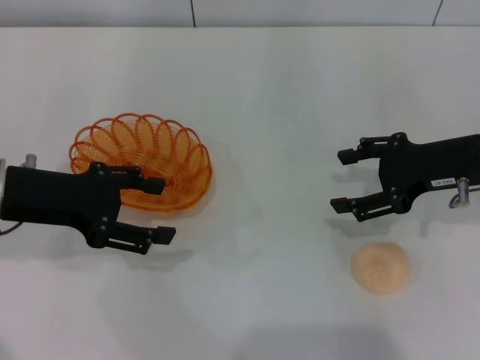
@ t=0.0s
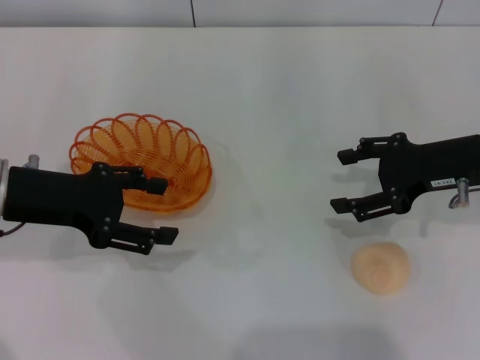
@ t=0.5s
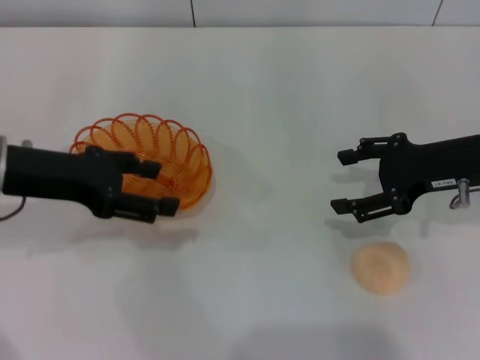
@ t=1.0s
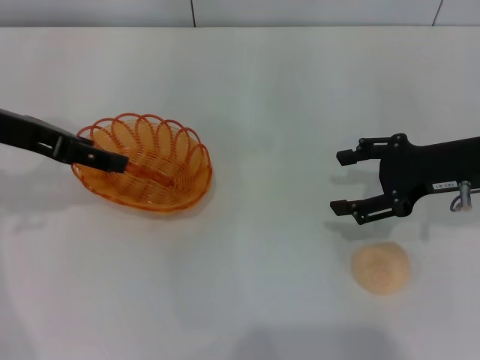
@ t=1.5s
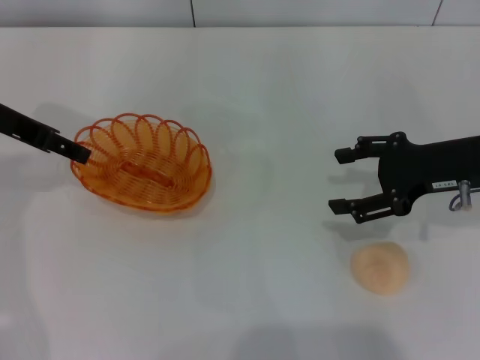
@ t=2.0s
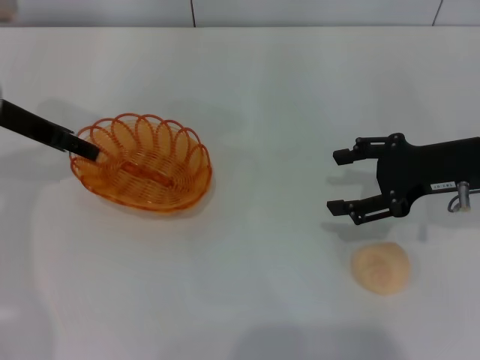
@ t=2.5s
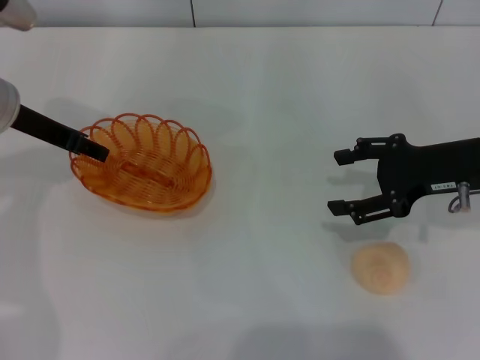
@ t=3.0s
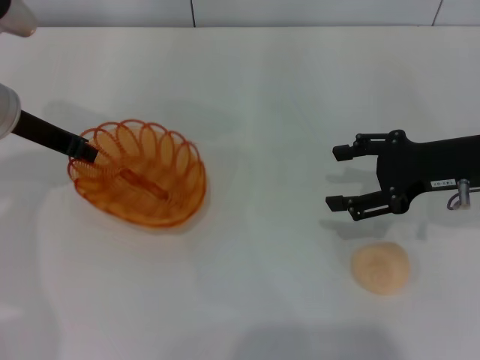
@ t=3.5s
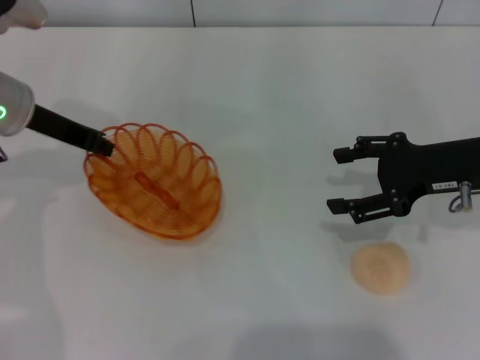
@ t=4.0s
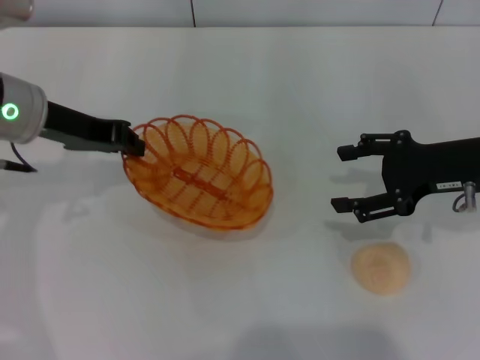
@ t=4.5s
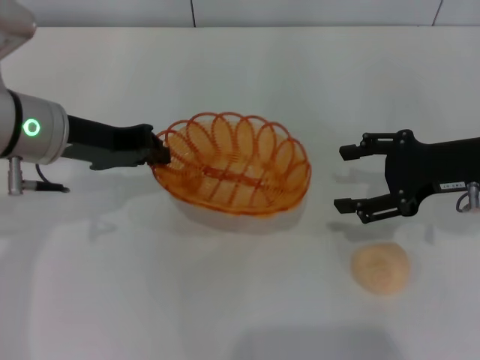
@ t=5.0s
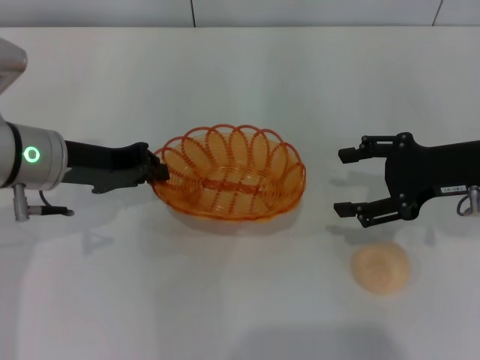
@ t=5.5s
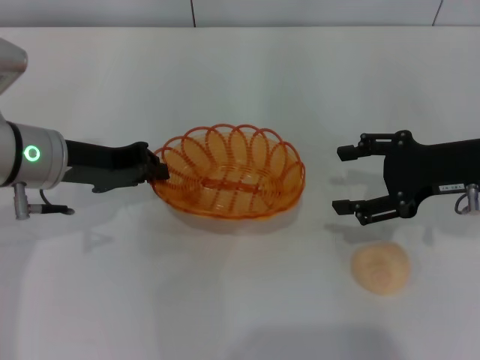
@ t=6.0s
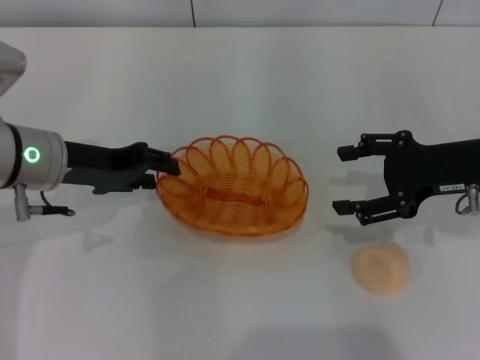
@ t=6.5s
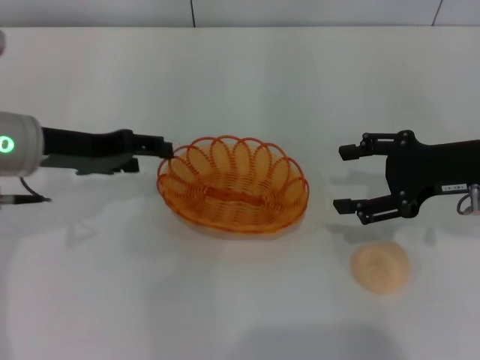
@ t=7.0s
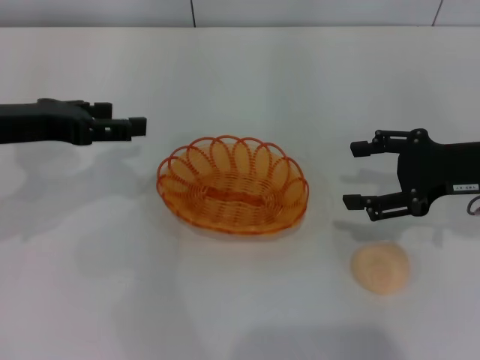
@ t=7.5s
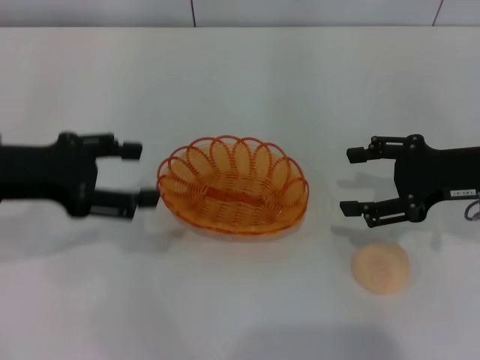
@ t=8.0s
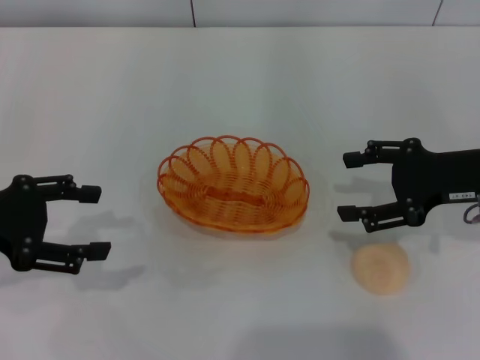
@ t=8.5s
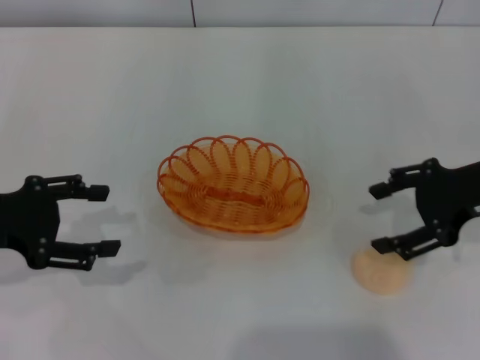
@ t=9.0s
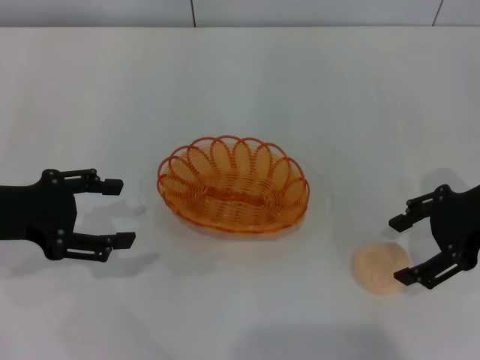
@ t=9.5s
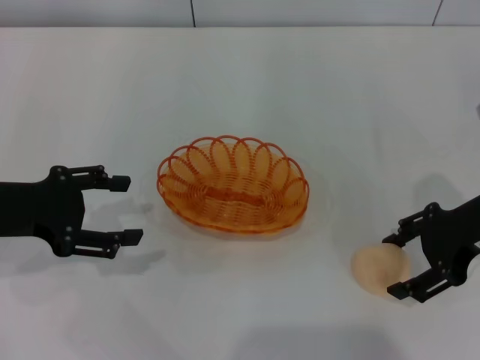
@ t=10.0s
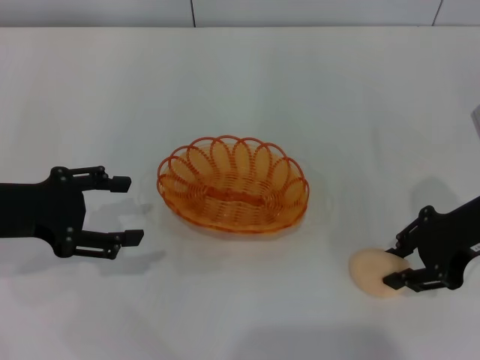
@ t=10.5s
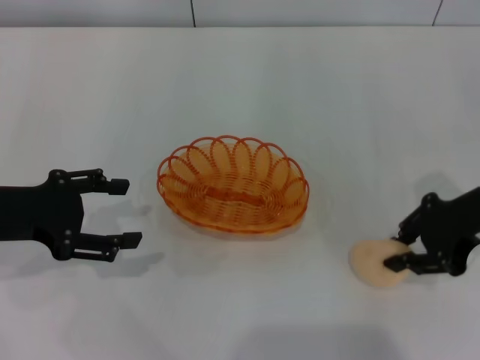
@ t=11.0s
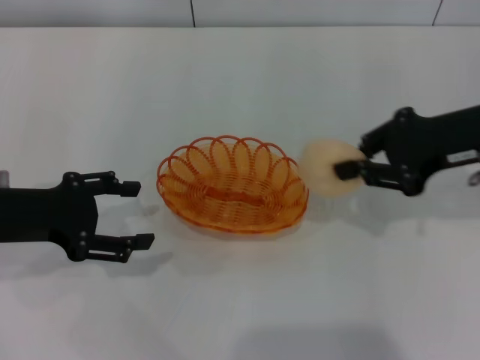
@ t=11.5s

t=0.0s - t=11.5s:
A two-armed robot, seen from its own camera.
Step, t=0.0s - t=4.0s: Pick up the basket with the left gripper.
Step, t=4.5s - t=7.0s: Place the basket in the center of view with the left gripper.
Step, t=7.5s - t=11.0s: Pick up the egg yolk pastry with the right gripper.
t=0.0s - t=2.0s: The left gripper goes approximately 10 cm forward and upward.
t=2.0s - t=4.0s: The left gripper shifts by approximately 5 cm, and closes up.
t=4.0s - t=6.0s: The left gripper heads backward, covering approximately 5 cm.
t=6.0s - t=7.5s: The left gripper is displaced to the left by about 5 cm, and opens.
t=7.5s - t=9.5s: The left gripper moves some 5 cm.
t=9.5s - t=11.5s: The right gripper closes up.

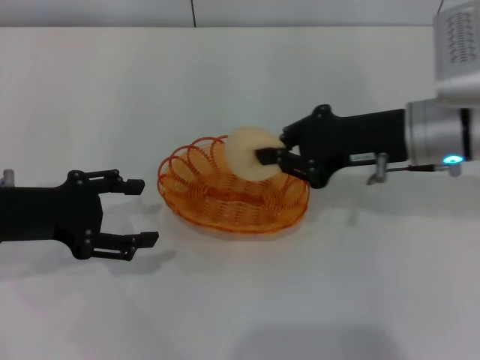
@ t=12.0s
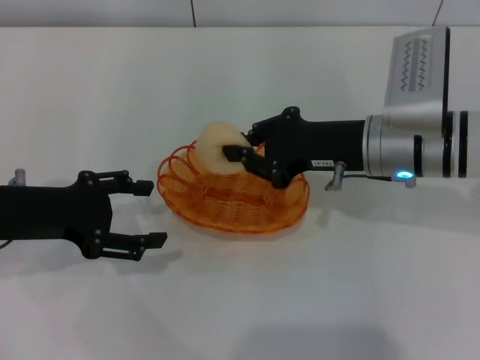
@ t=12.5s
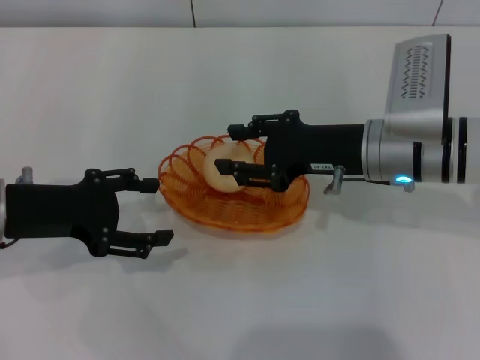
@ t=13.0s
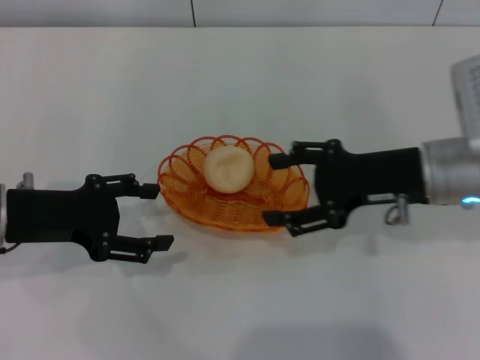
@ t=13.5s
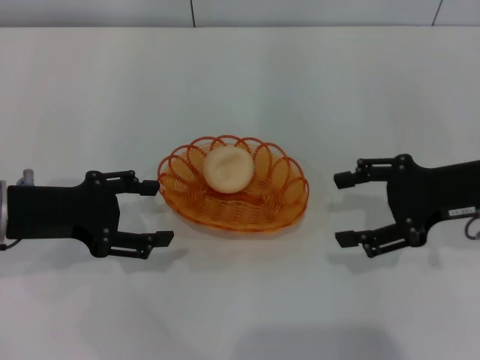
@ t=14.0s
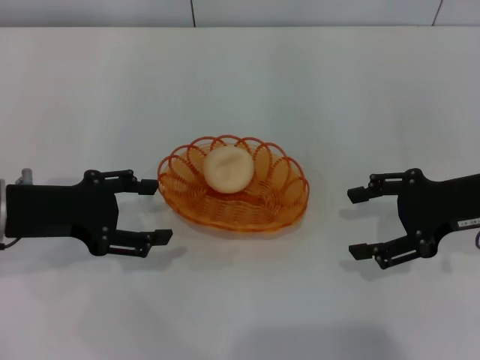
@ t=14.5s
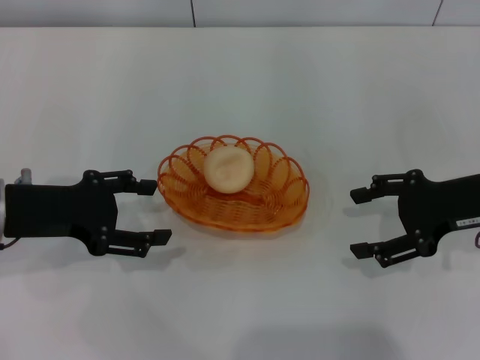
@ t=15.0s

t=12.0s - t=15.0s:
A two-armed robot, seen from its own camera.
Step, t=12.0s - t=13.0s: Place the egg yolk pastry into the basket with the right gripper.
t=12.0s - t=13.5s: The right gripper opens its fingers.
t=13.5s - t=15.0s: The right gripper goes some 10 cm to the right.
